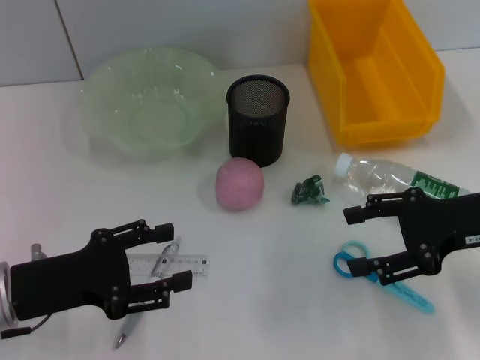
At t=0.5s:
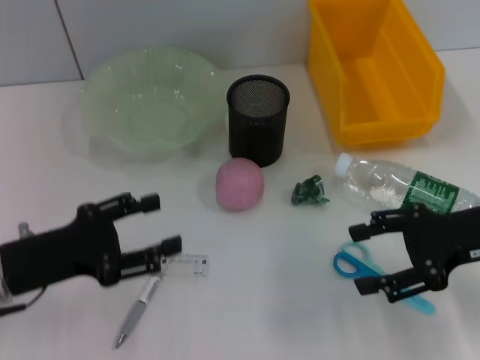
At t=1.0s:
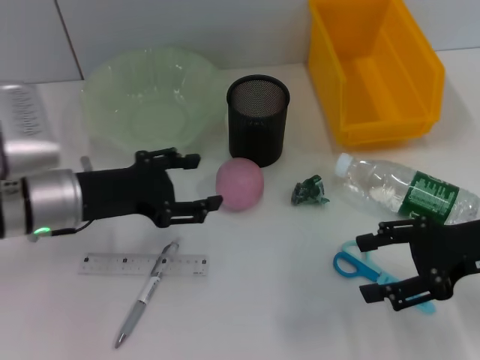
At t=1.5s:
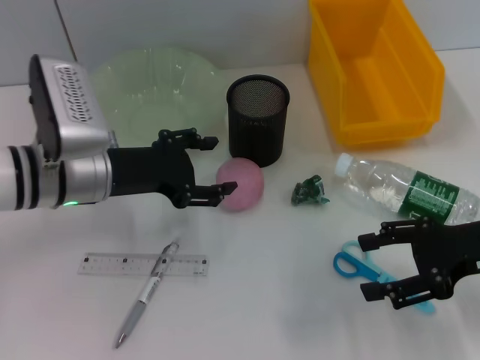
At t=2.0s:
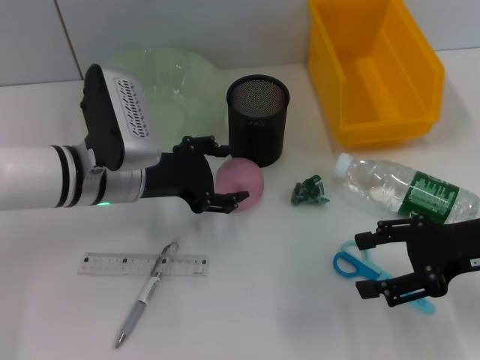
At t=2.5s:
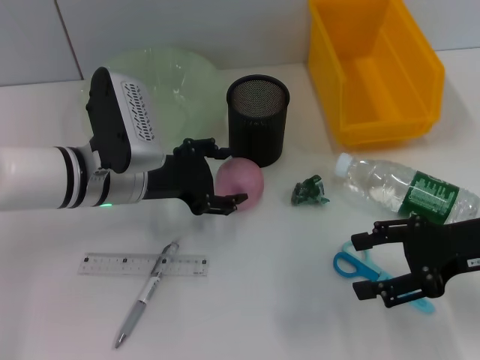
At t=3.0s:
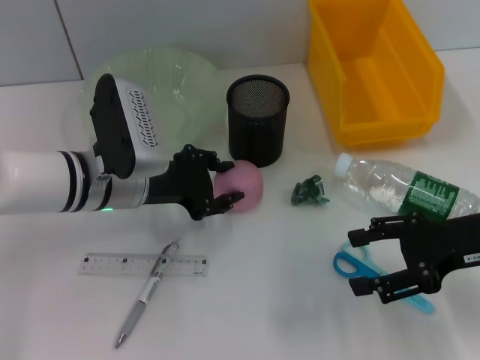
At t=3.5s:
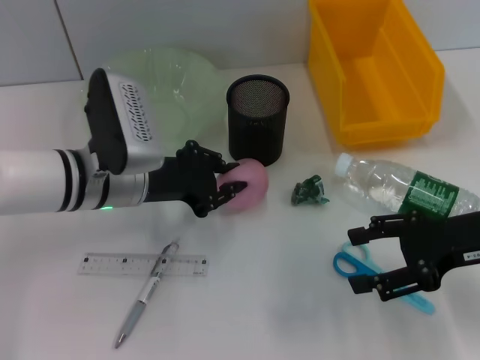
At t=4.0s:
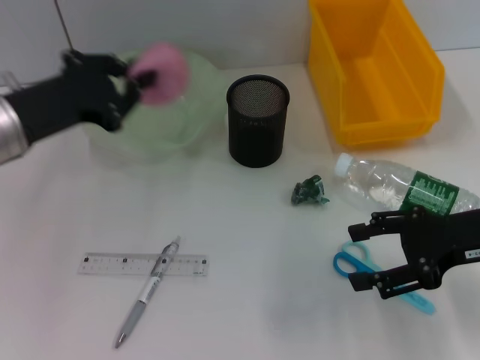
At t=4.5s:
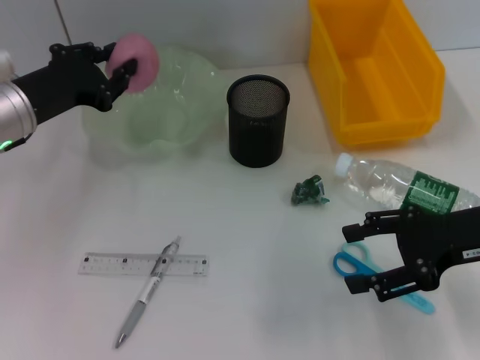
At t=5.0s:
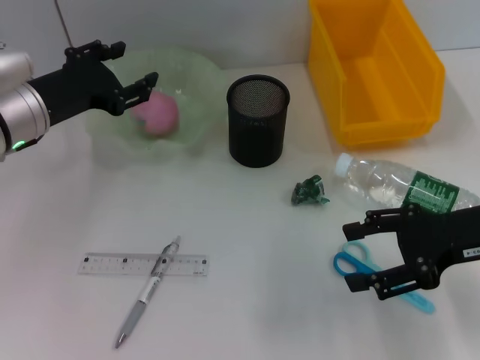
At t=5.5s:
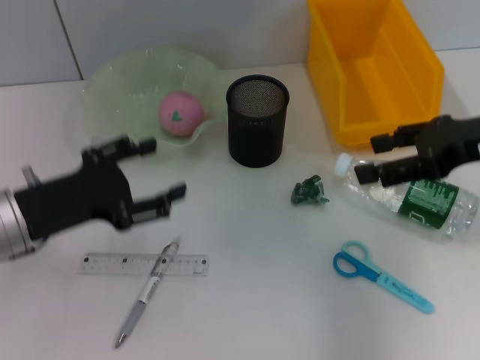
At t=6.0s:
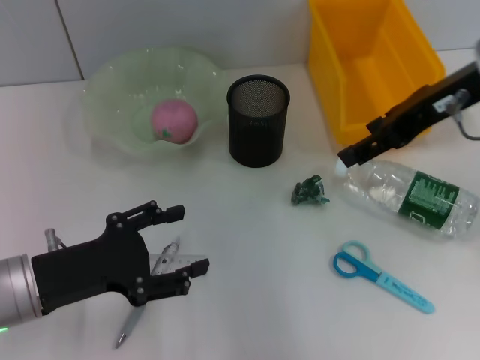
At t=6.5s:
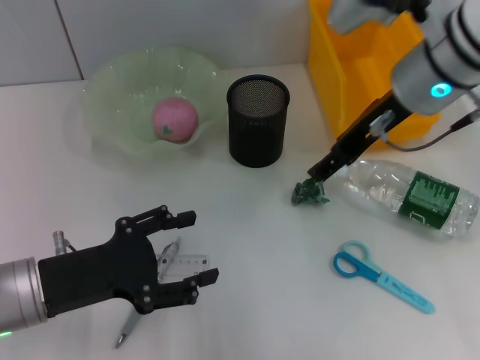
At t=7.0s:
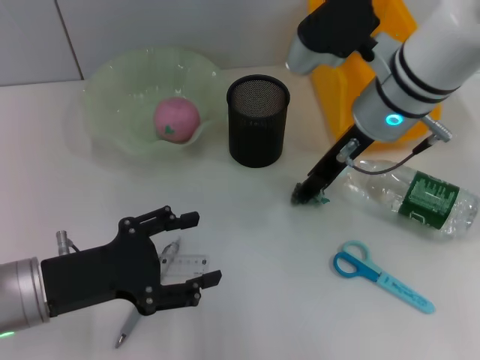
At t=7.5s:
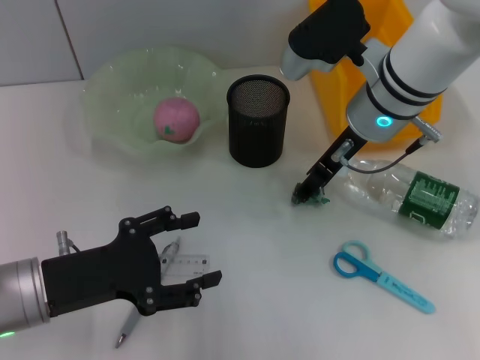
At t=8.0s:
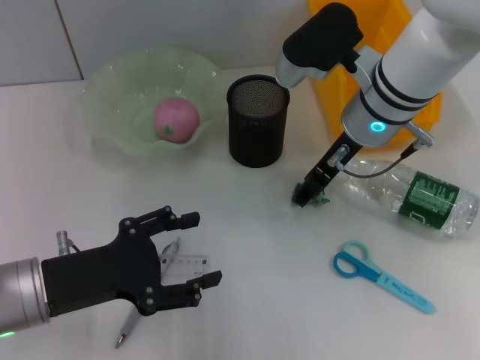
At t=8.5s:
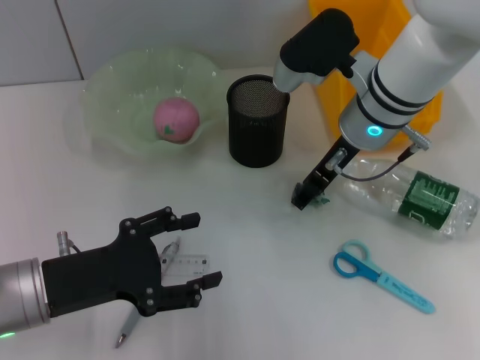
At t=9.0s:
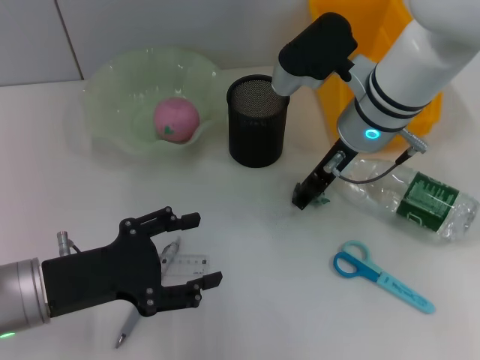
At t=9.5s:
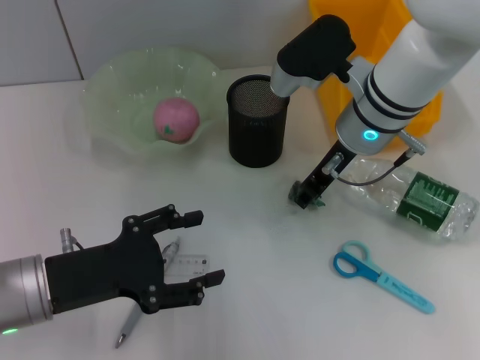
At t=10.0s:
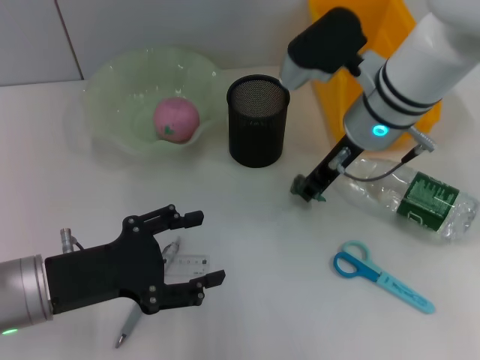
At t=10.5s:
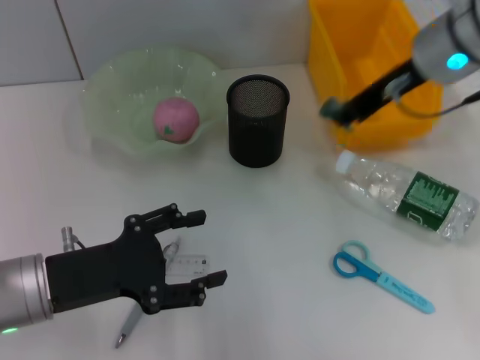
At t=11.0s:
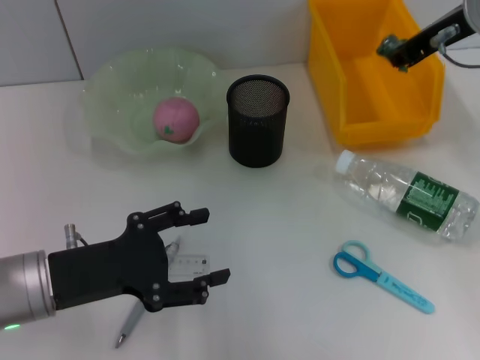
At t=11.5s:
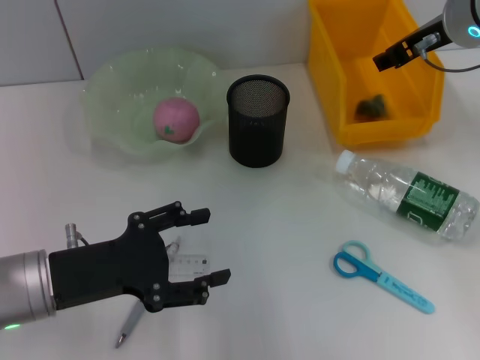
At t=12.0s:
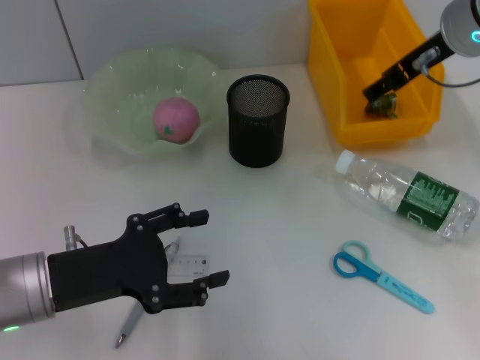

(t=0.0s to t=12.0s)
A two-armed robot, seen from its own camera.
Step, t=0.0s - t=3.0s: Grab the peach with the left hand.
Step, t=3.5s - t=5.0s: Place the peach into the fruit bowl with the left hand.
Step, t=5.5s - t=9.5s: Grab the plastic with the right hand.
Step, t=10.0s - t=11.5s: Place the plastic into the trash can with the right hand.
t=0.0s - t=2.0s: The left gripper travels forward and to the right by about 15 cm.
t=2.0s - t=4.0s: The left gripper heads to the left and upward, covering roughly 10 cm, and closes up.
t=4.0s - t=6.0s: The left gripper shifts approximately 10 cm backward and downward, and opens up; the right gripper is displaced upward, forward and to the left by some 15 cm.
t=6.0s - t=8.0s: The right gripper travels downward and to the left by about 15 cm.
t=8.0s - t=10.0s: The right gripper closes.
t=10.0s - t=12.0s: The right gripper heads upward and to the right, covering some 10 cm, and opens its fingers.

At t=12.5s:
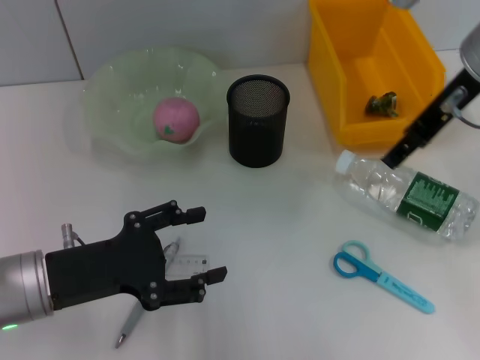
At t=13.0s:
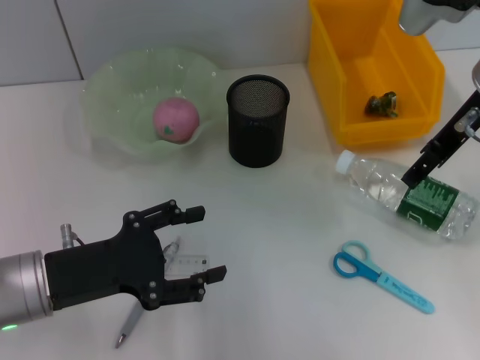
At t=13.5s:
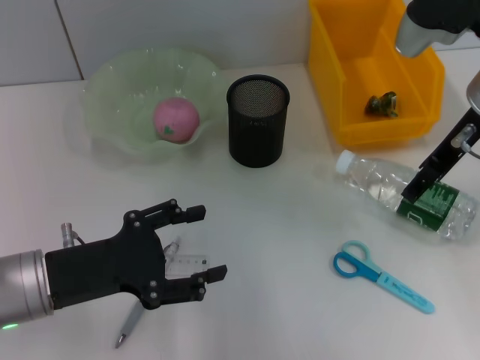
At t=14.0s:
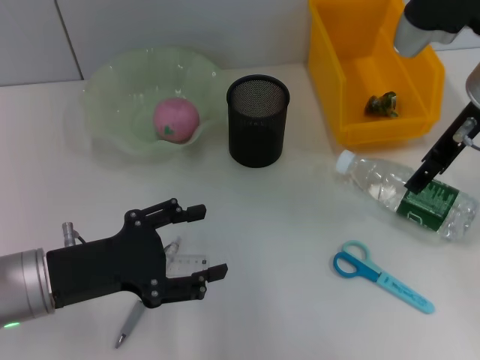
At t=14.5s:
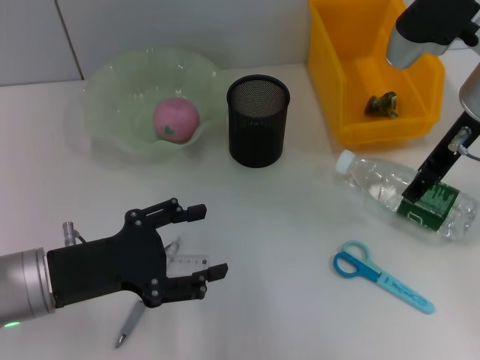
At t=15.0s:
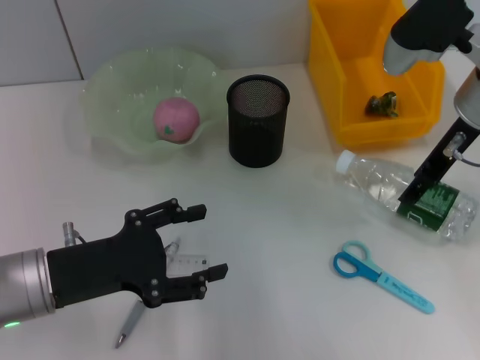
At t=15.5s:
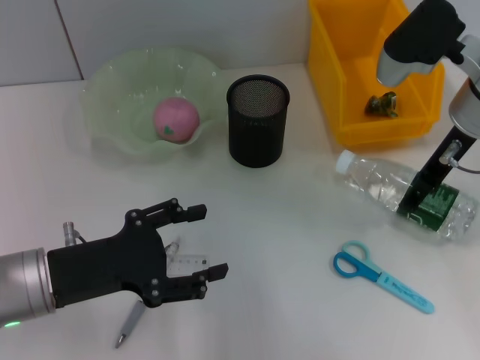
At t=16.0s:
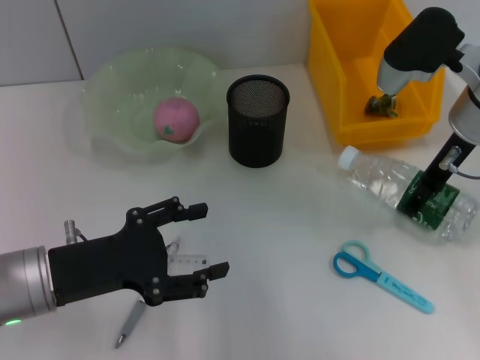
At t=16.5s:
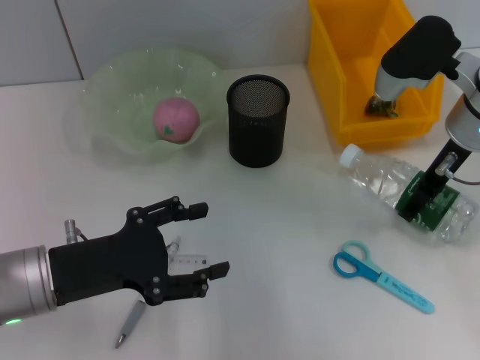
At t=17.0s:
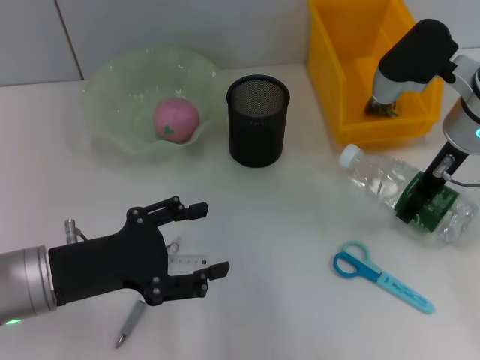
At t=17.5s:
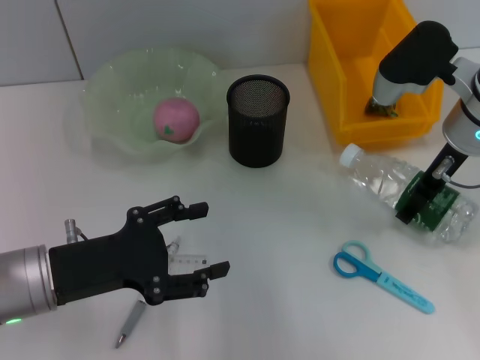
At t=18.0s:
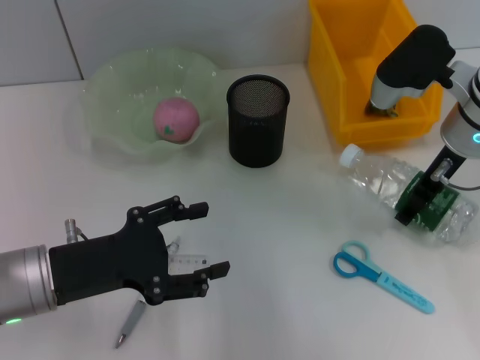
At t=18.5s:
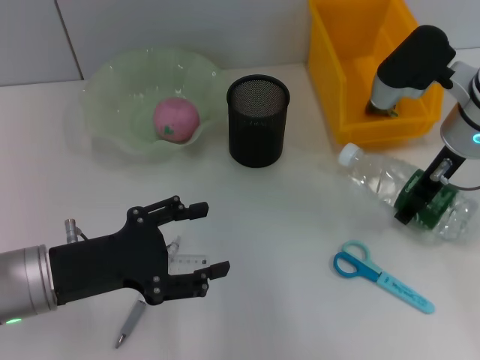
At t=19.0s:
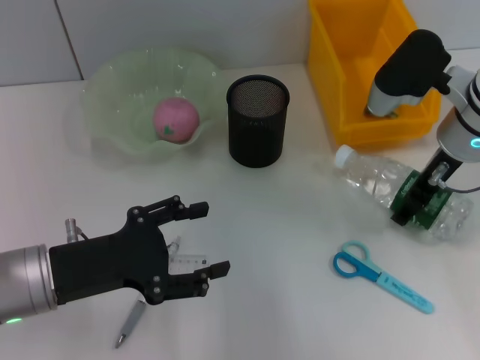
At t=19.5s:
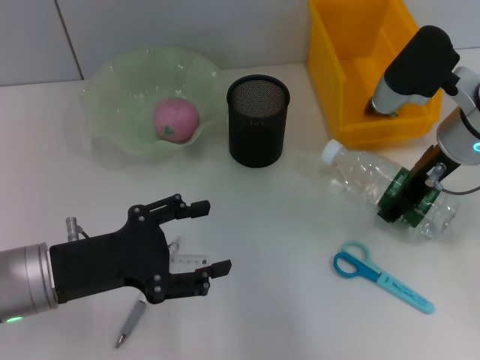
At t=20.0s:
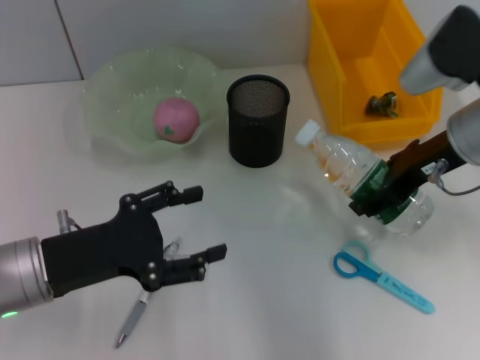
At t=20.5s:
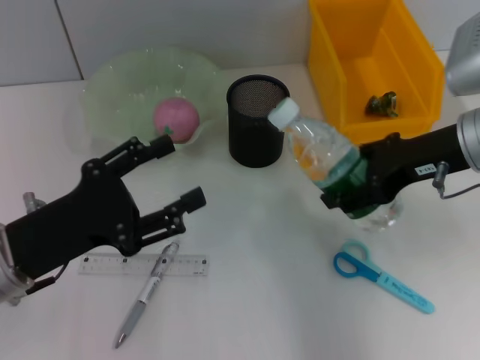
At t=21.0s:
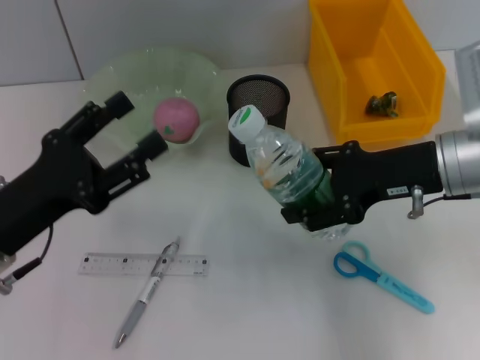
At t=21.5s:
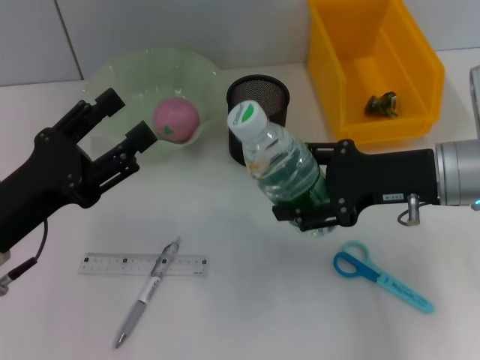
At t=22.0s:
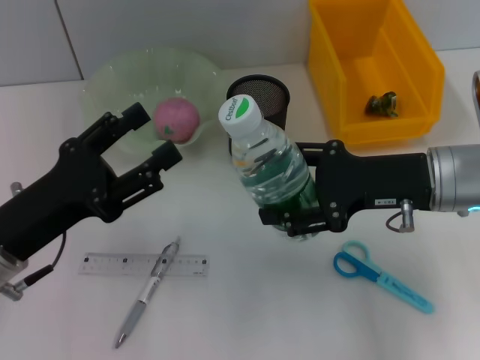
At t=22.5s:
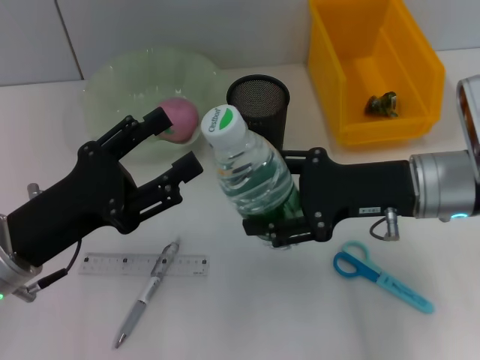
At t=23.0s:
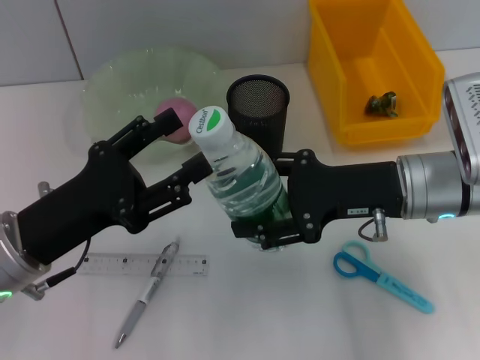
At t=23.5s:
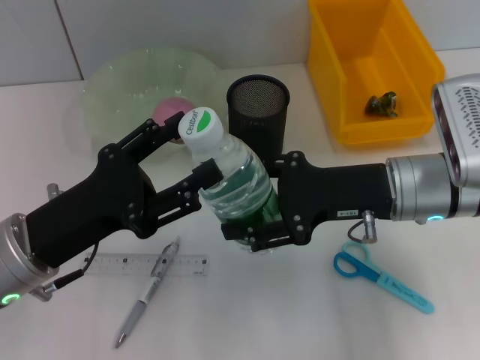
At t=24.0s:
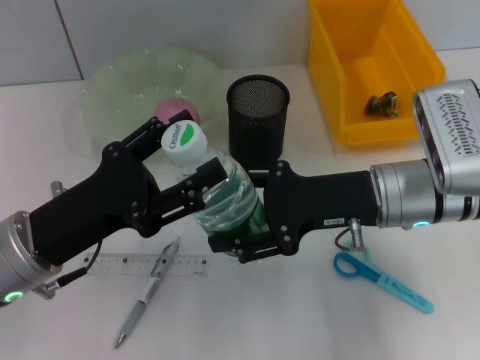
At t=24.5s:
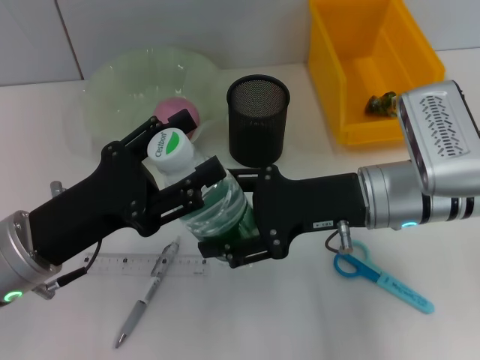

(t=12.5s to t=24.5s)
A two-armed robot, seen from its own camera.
Step, t=12.5s - t=18.5s: Grab the water bottle with the right hand.
t=12.5s - t=14.5s: The right gripper shifts approximately 5 cm downward.
t=14.5s - t=16.5s: The grippers stay close to where they were, moving slightly.
t=16.5s - t=18.5s: Both grippers stay about where they are.
t=18.5s - t=20.5s: The right gripper goes about 5 cm backward.
t=20.5s - t=22.5s: The right gripper moves about 5 cm.

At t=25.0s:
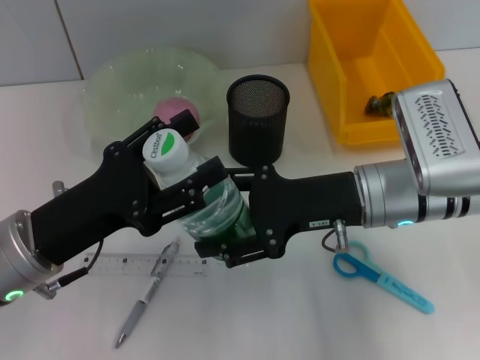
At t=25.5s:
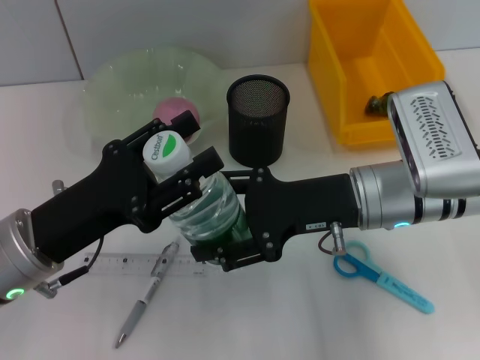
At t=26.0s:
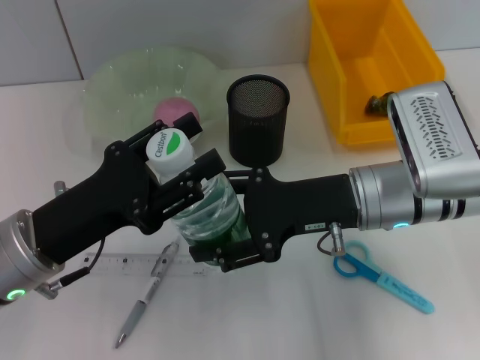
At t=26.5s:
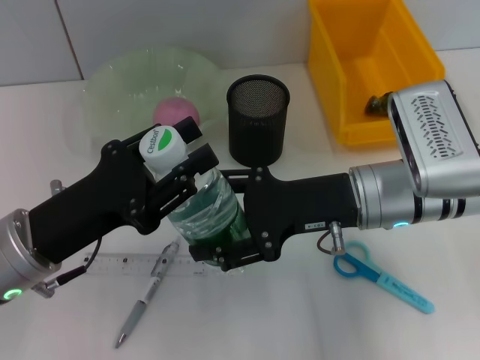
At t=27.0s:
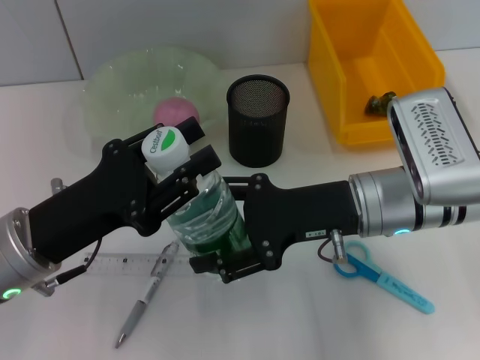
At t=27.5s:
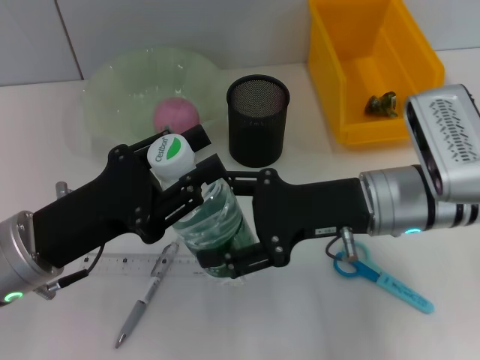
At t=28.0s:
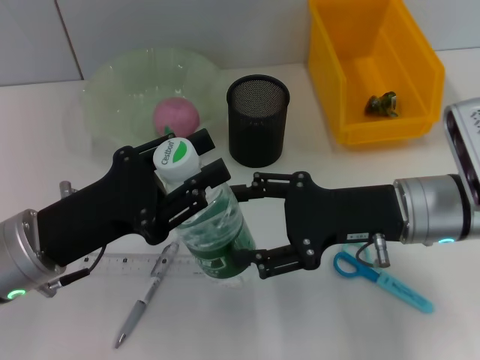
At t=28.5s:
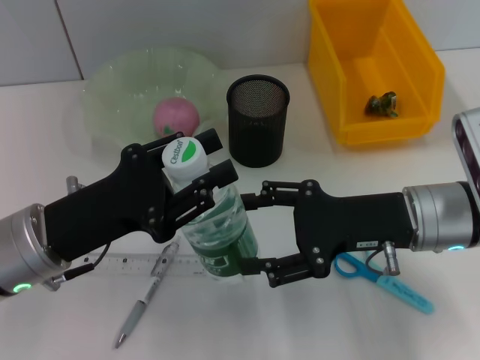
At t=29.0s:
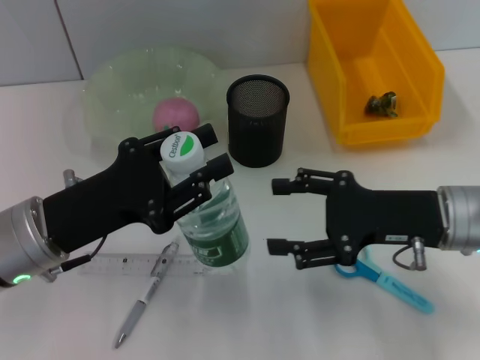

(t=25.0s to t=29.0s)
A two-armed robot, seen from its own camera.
Step, t=25.0s - t=28.5s: Pass the water bottle from the right hand to the left hand.
t=25.0s - t=27.0s: The left gripper closes its fingers.
t=27.0s - t=29.0s: The right gripper shifts some 5 cm to the right.
